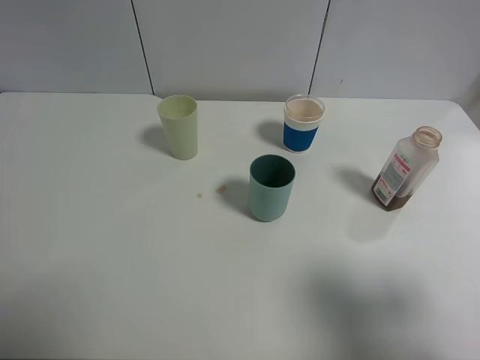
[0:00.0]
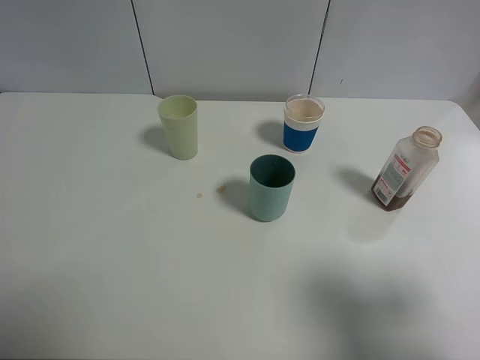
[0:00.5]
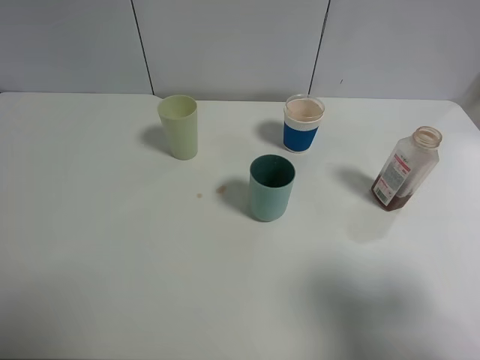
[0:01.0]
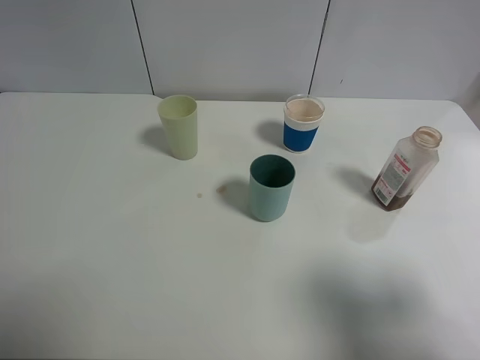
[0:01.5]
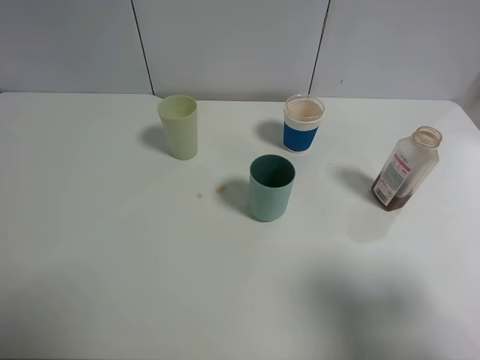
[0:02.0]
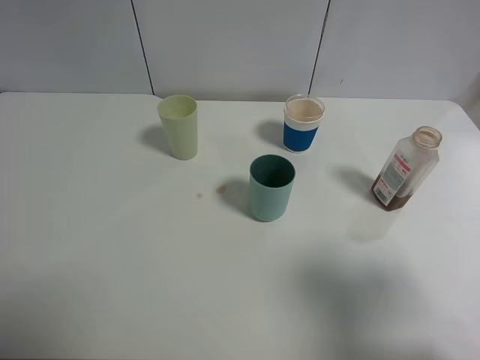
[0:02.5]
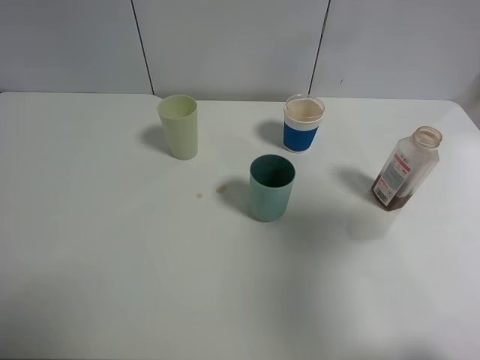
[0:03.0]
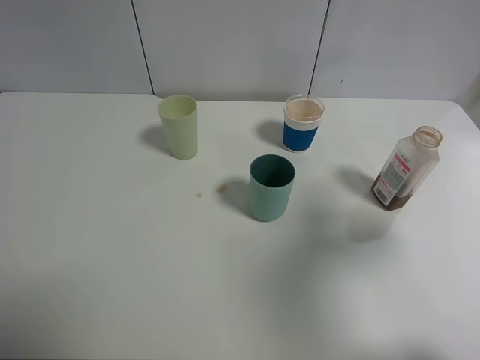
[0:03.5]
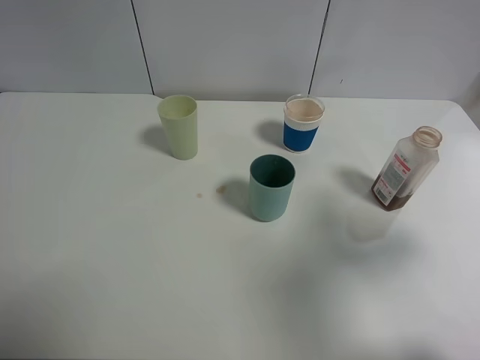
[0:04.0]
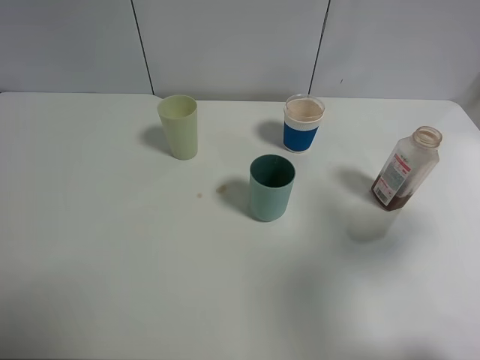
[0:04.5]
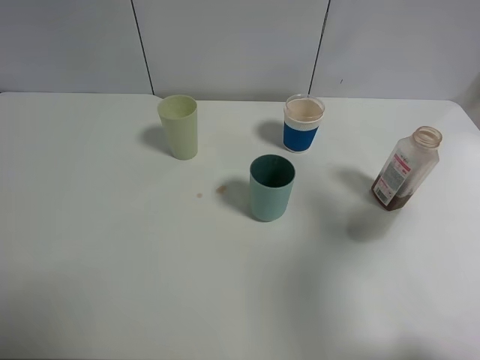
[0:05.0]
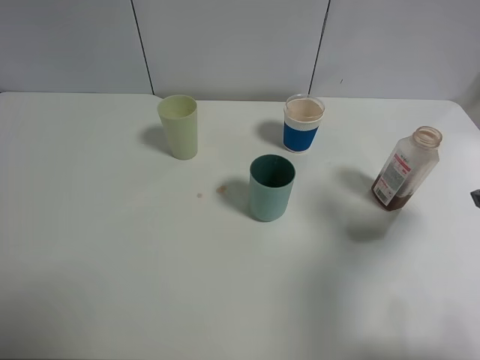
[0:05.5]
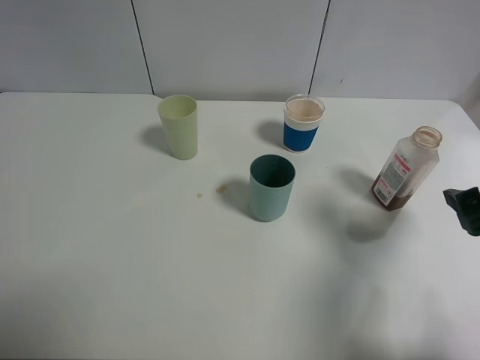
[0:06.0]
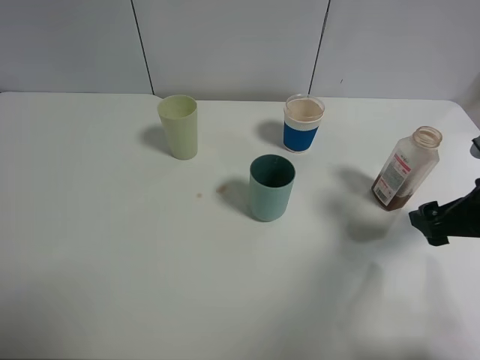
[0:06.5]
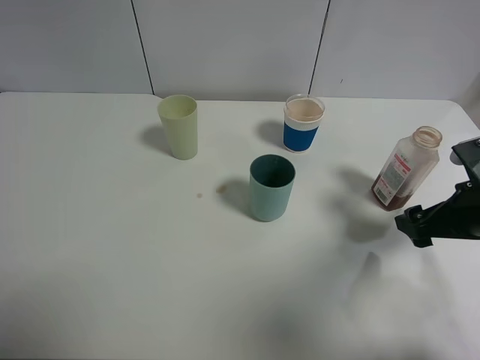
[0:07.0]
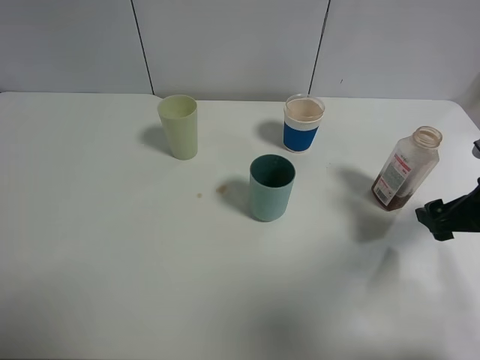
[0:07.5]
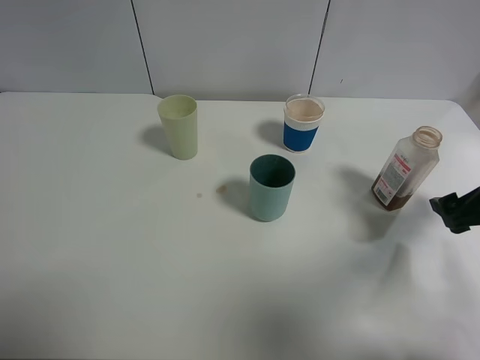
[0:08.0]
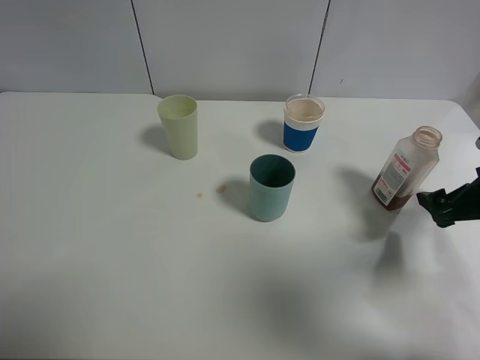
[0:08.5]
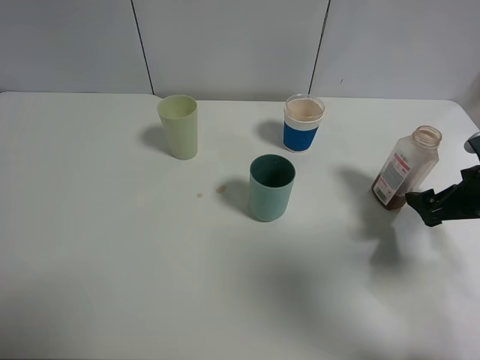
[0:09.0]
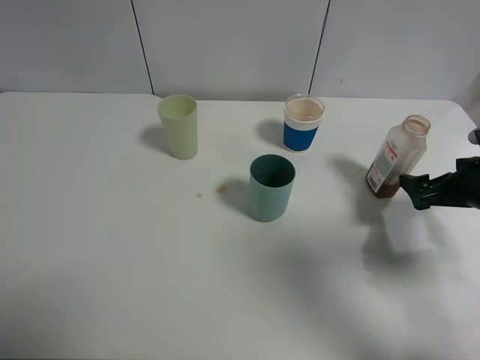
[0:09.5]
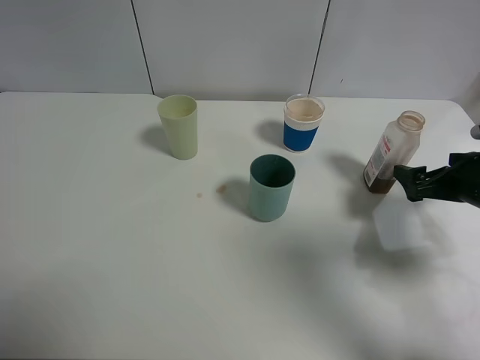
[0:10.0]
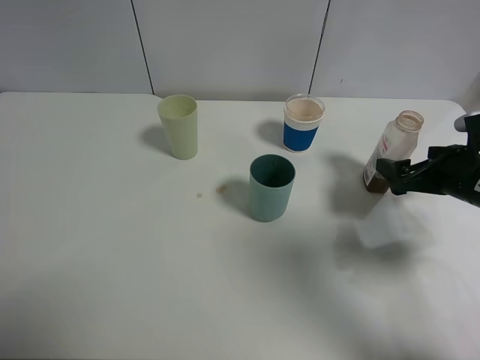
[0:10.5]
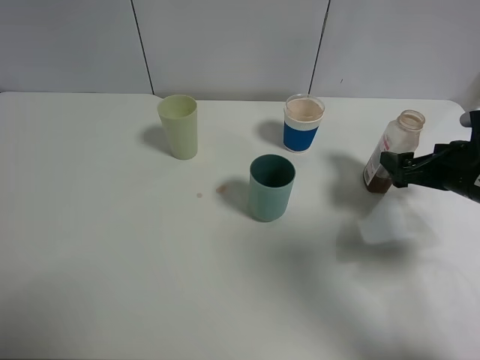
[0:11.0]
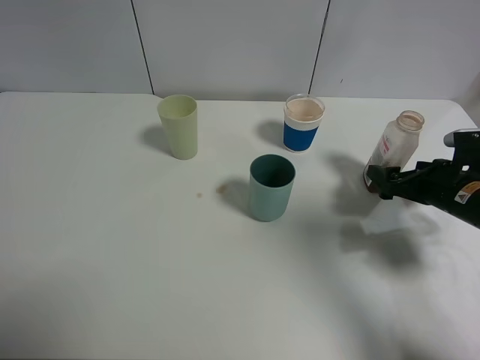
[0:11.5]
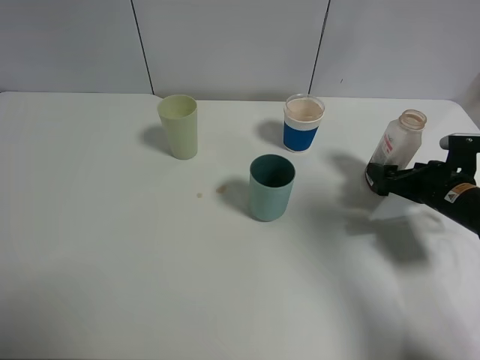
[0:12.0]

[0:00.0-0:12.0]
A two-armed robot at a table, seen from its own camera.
Task of the whole recording: use a clamp to hold the bottle of the drink, pour the beverage into a random cup, then clamp the cup containing the drink and pour the drink into another random cup.
0:00.0 to 0:02.0: Both grippers stay put.
0:02.0 to 0:04.0: The right gripper heads forward, covering roughly 10 cm.
0:04.0 to 0:06.0: The right gripper travels downward by roughly 5 cm.
0:06.0 to 0:08.0: The right gripper is displaced downward by some 5 cm.
0:08.0 to 0:10.0: The right gripper moves roughly 5 cm.
0:10.0 to 0:12.0: The right gripper is displaced downward by some 5 cm.

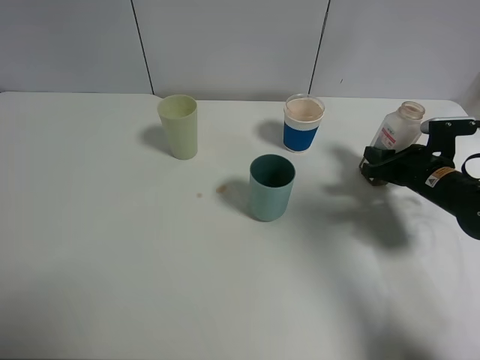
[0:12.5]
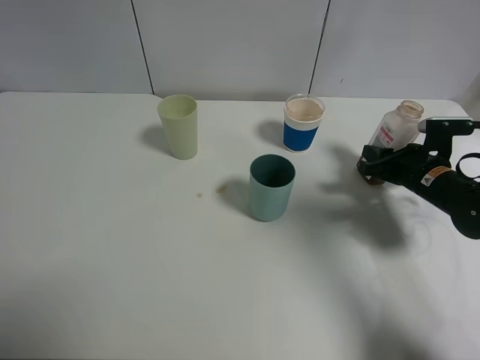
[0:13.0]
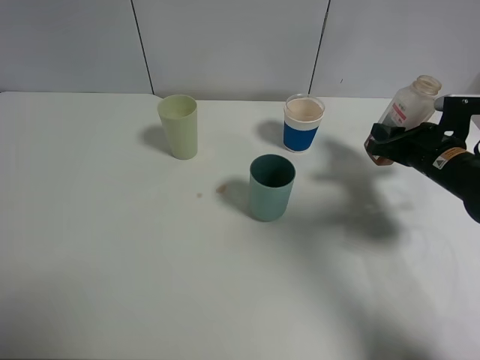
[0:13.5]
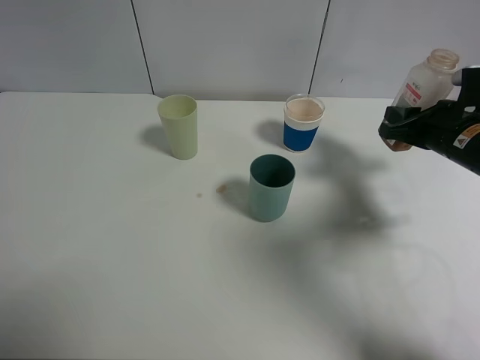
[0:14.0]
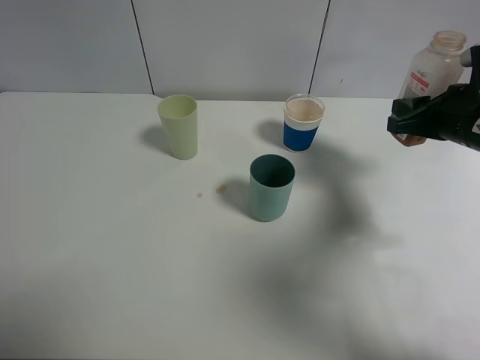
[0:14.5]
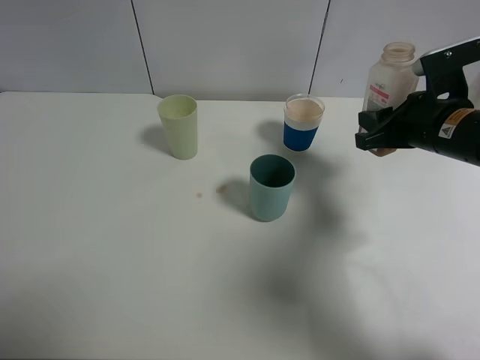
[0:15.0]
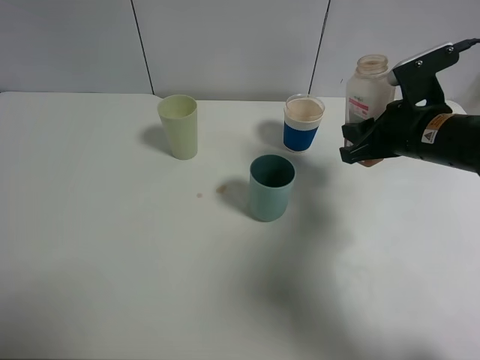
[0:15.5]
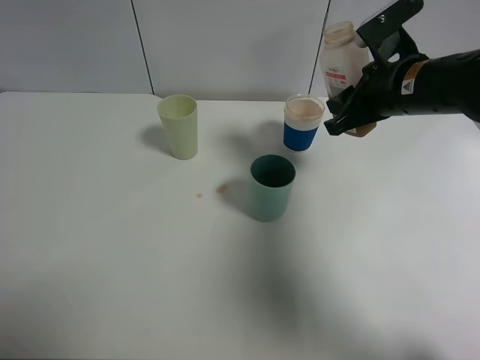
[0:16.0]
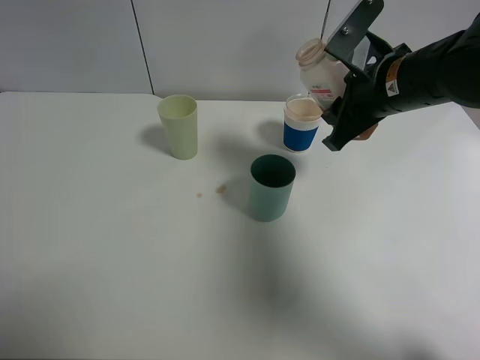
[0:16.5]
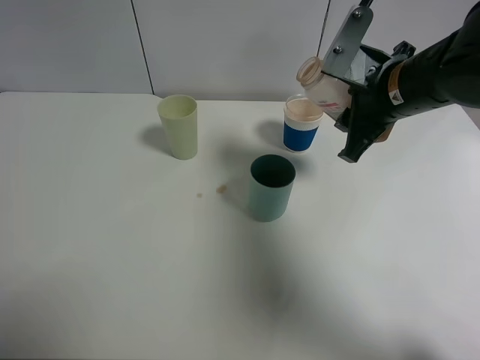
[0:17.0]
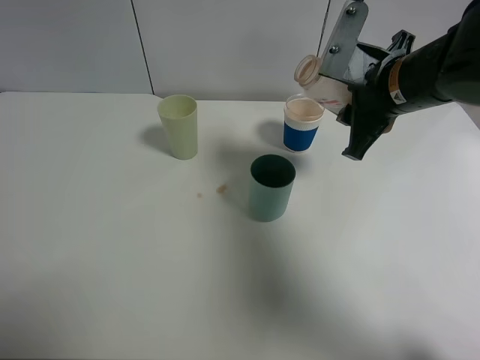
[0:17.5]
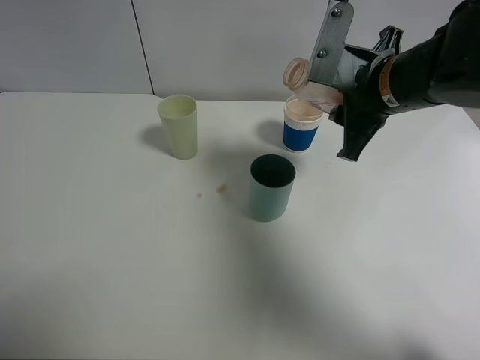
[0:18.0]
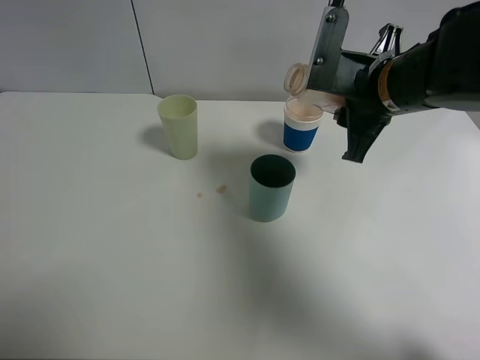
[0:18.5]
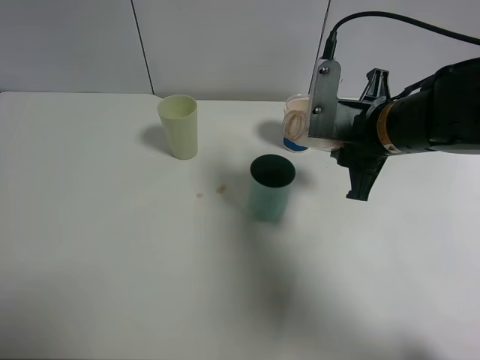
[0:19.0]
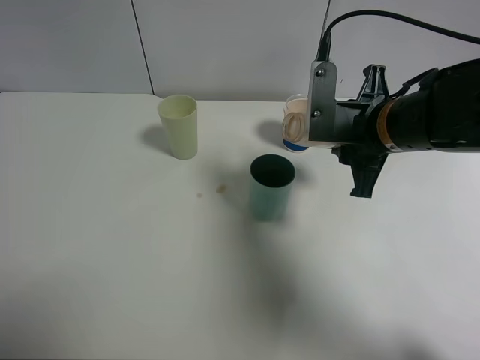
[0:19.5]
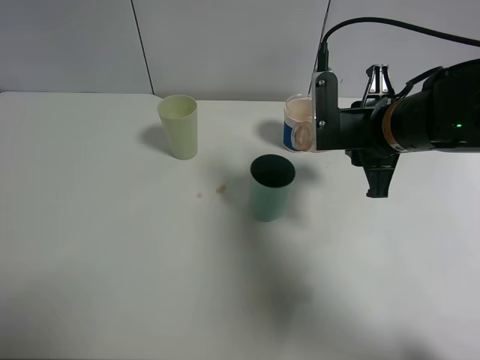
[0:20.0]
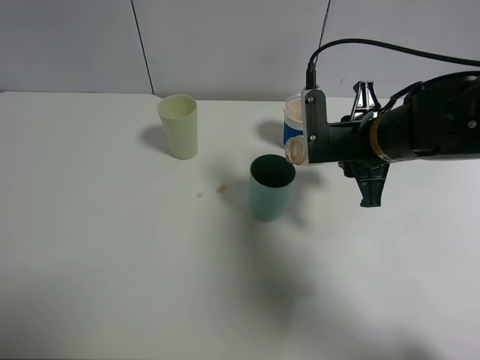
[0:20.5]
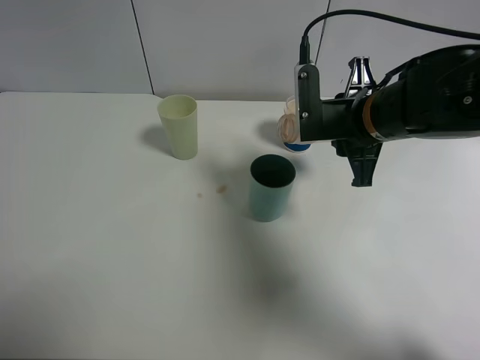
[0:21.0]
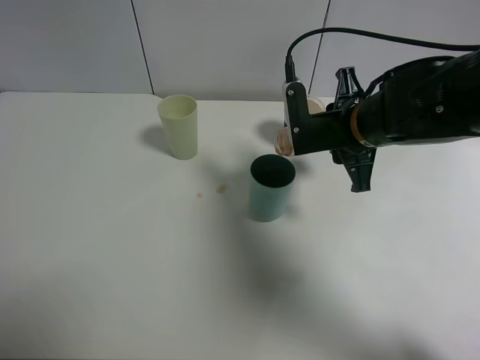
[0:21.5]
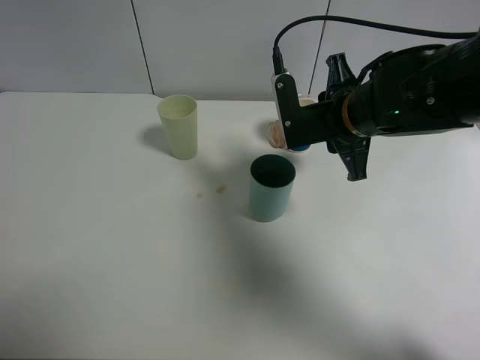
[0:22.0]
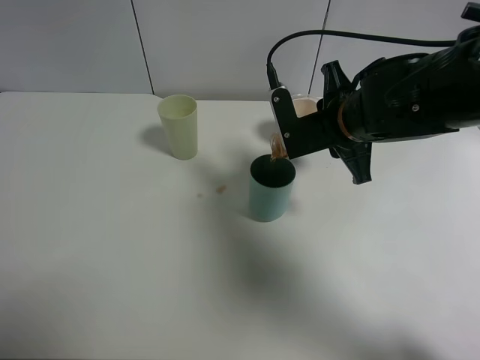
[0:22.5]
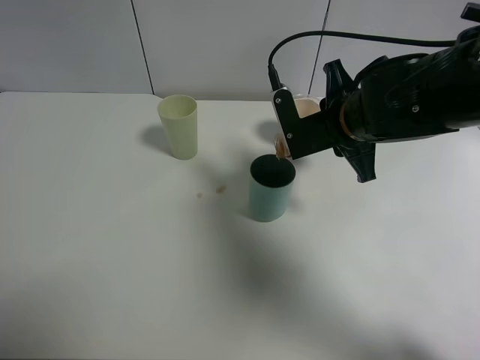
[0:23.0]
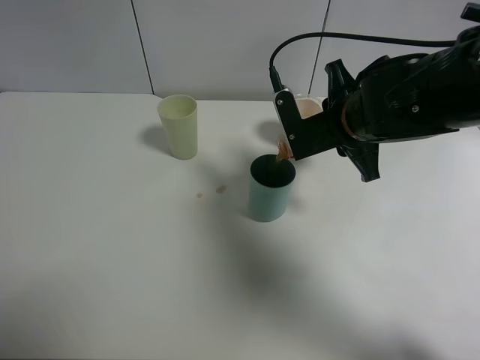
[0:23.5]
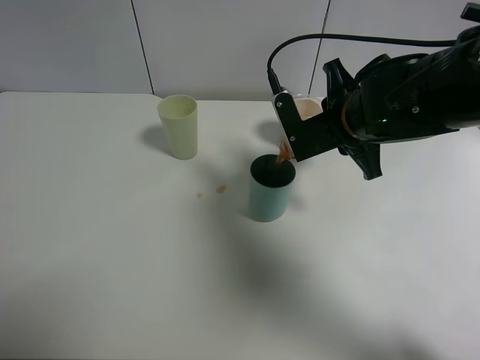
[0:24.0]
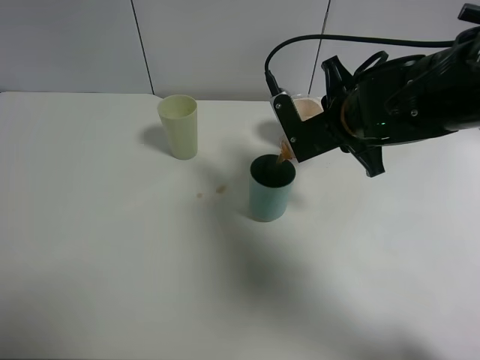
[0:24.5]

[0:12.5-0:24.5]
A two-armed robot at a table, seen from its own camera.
Task of the whole recording: use a clamp to hold the bottle of the drink, pour the beverage into a random cup, then clamp the cup containing the drink and pour the drink into another random cup.
0:12.5 to 0:14.5: The right gripper shifts roughly 10 cm upward.
0:14.5 to 0:16.5: The right gripper moves to the left, approximately 10 cm.
0:18.5 to 0:20.5: The right gripper moves downward, about 5 cm.
0:20.5 to 0:22.5: The grippers move only a little.
0:22.5 to 0:24.5: There are only small adjustments of the grippers.

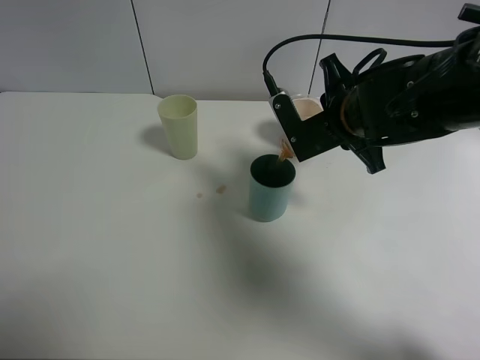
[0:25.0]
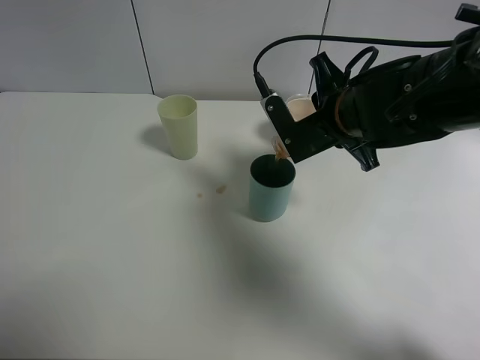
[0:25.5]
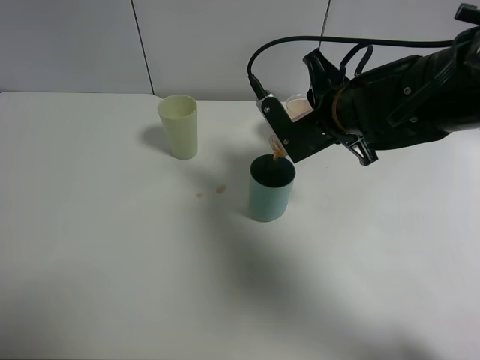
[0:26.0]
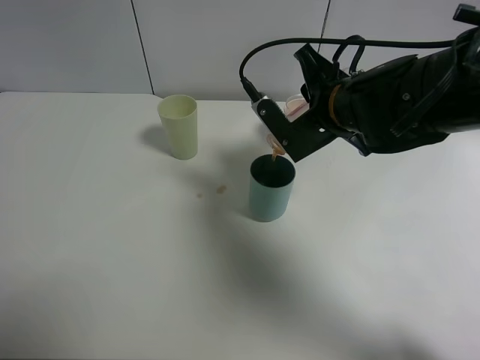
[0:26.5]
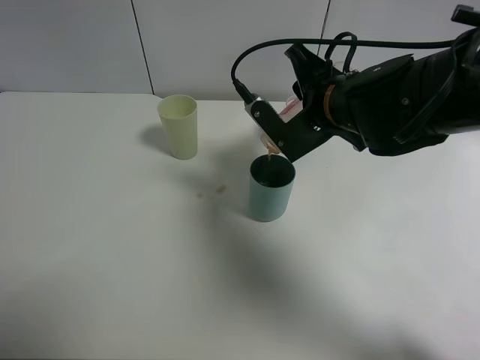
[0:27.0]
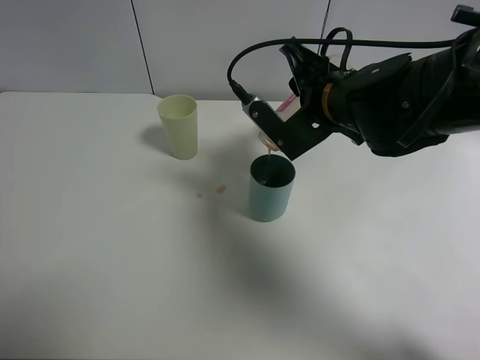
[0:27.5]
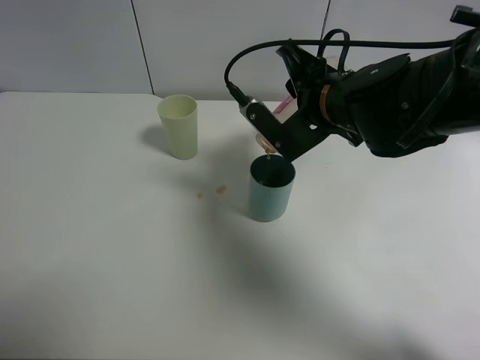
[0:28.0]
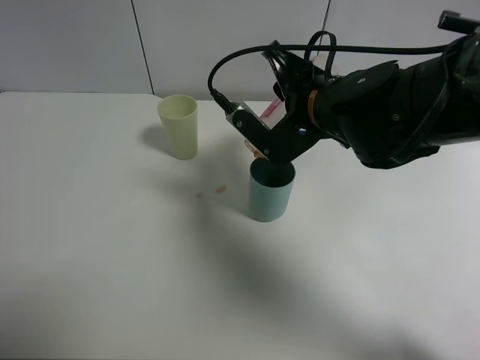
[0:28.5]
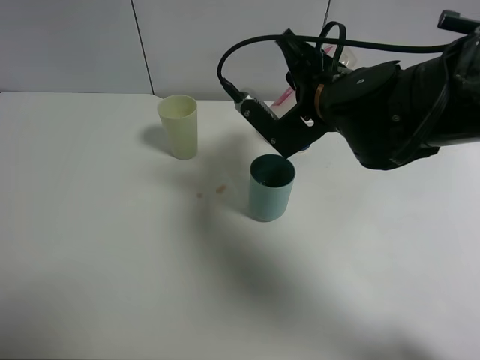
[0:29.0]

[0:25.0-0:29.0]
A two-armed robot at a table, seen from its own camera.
Task of the whole recording: use a clamp to hold the bottle of the drink, pour the beverage into a random cup, then clamp the cup containing the drink and pour the drink into another random cup.
0:25.0 to 0:27.0: The grippers move only a little.
0:27.0 to 0:29.0: The grippers move only a little.
